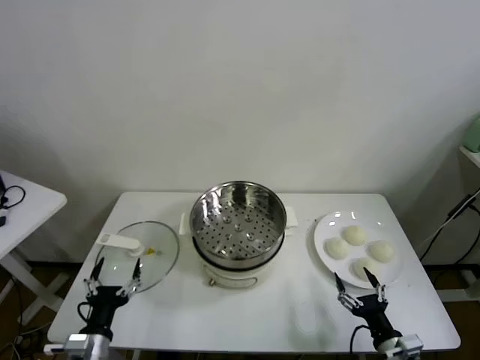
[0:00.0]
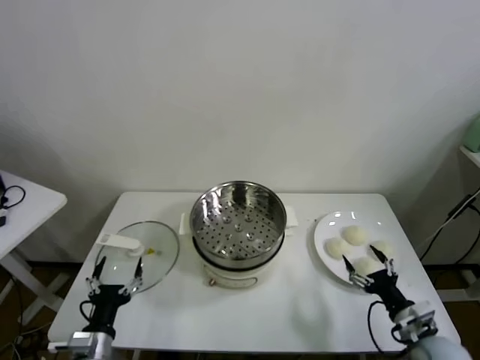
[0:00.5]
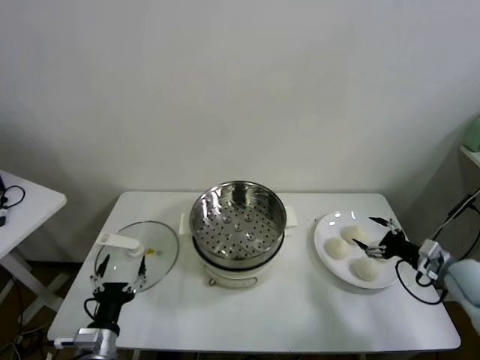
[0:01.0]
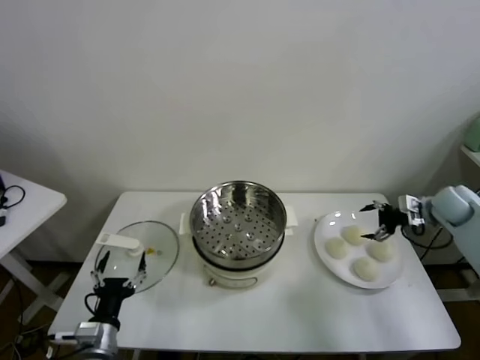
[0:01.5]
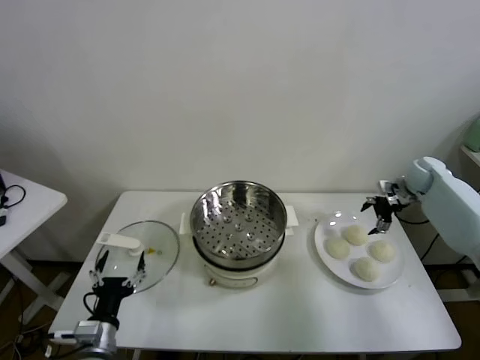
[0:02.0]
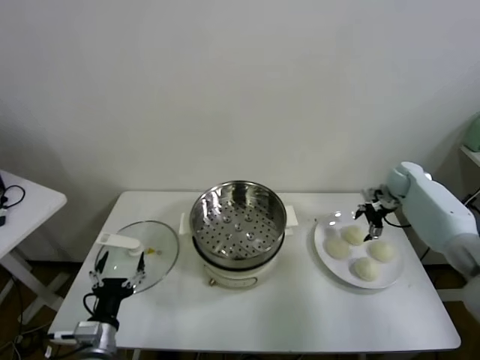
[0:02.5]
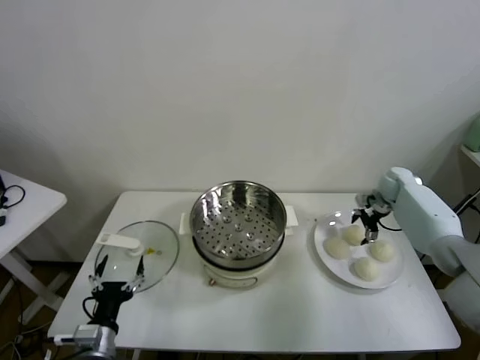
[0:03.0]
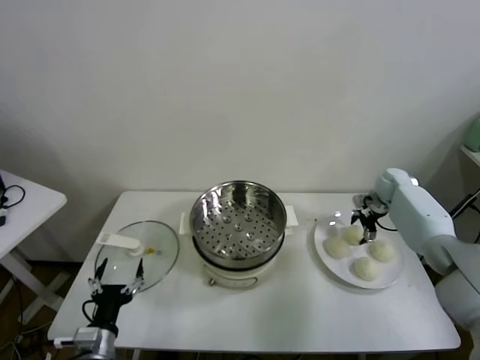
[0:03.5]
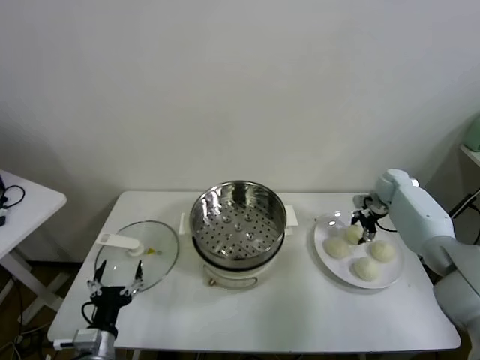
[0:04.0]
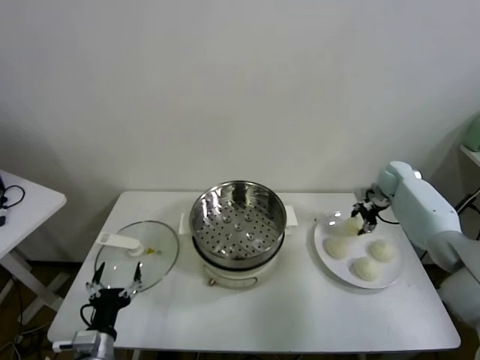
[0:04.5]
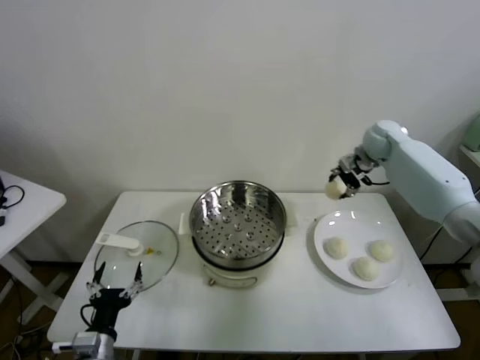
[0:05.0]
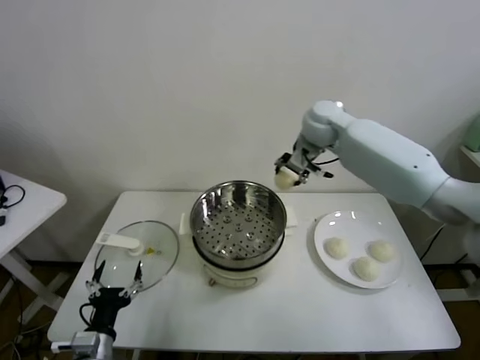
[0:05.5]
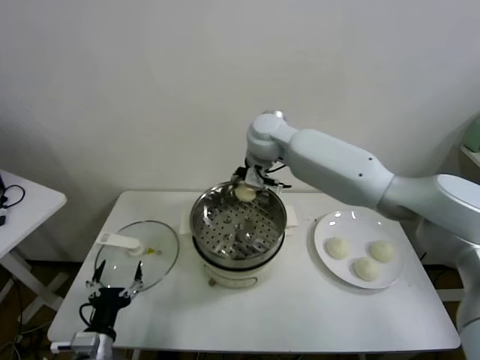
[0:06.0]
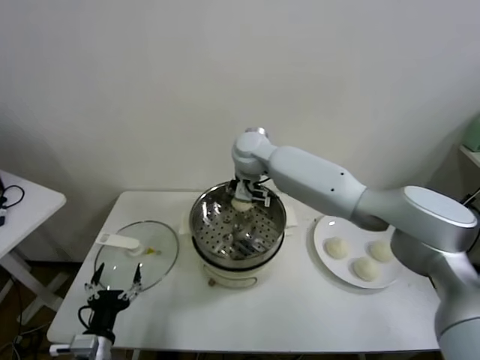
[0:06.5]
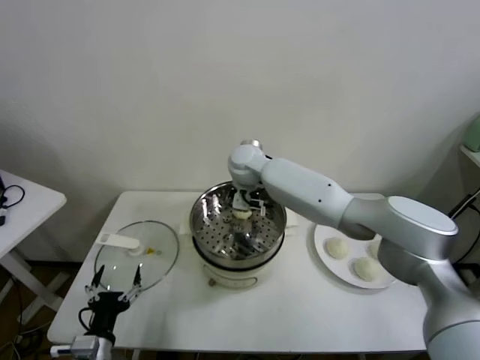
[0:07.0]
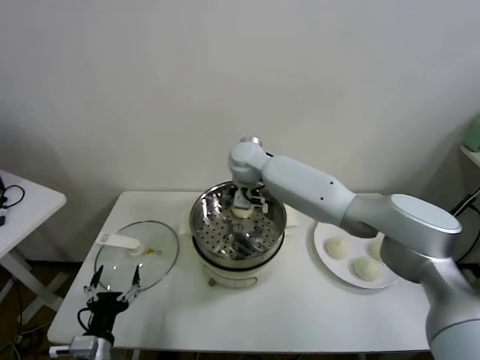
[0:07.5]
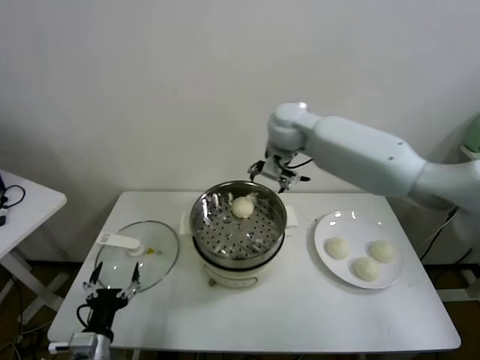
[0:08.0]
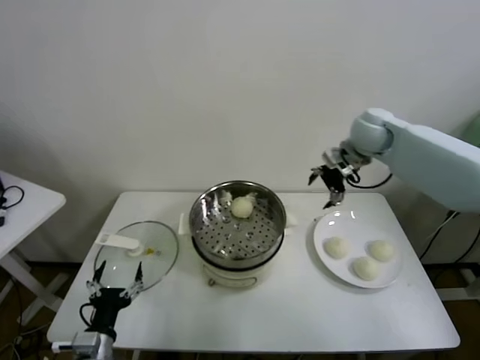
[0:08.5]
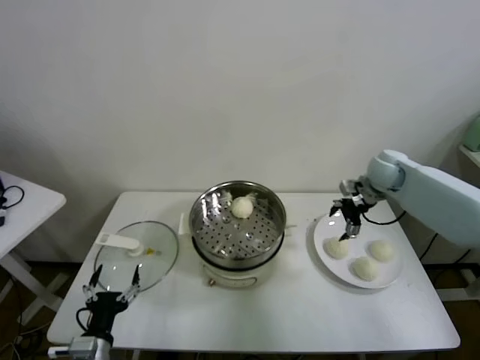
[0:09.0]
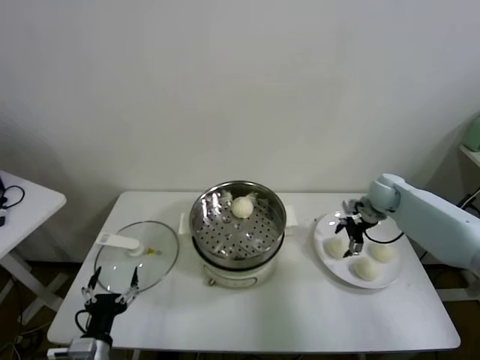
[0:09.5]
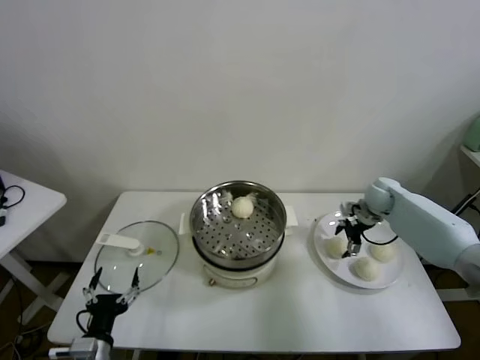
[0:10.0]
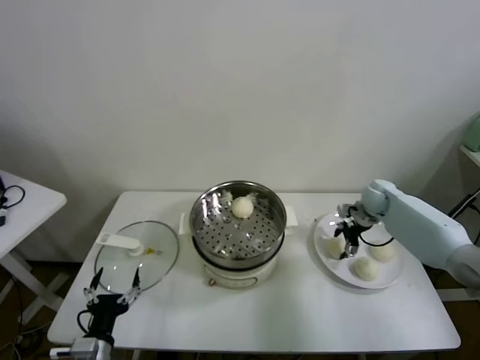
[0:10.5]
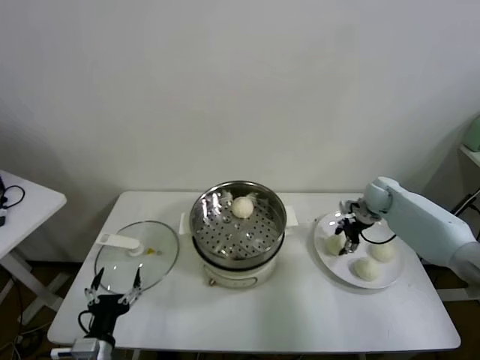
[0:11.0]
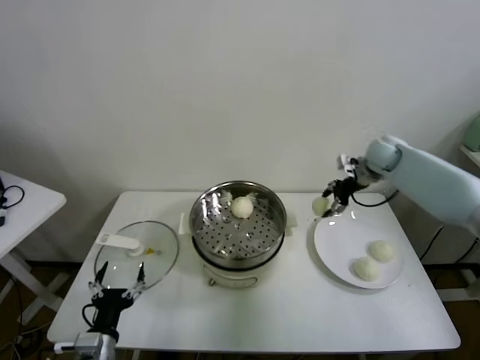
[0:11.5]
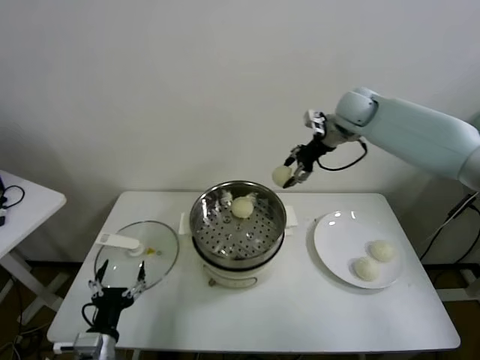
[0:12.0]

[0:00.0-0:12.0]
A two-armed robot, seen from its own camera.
Task of the whole recording: take steamed baozi put them in steamer.
Step, 0.0 to 3.5 s: Grasp the baozi in the plate with right gripper.
Step, 4.0 to 7.0 s: Place the baozi on the steamer with right gripper.
Step, 7.5 to 10.5 s: Grasp the baozi in the plate with right gripper.
2.0 to 4.0 s: The right gripper is displaced downward by roughly 5 cm, and closes.
4.0 to 6.0 s: The right gripper is displaced to the left and upward by roughly 40 cm.
6.0 to 8.0 s: The right gripper moves to the right, approximately 10 cm, and opens up.
8.0 to 10.0 s: The right gripper is displaced to the right and downward by some 35 cm.
10.0 to 12.0 s: The right gripper travels upward and to the left by roughly 30 cm, and closes its fingers.

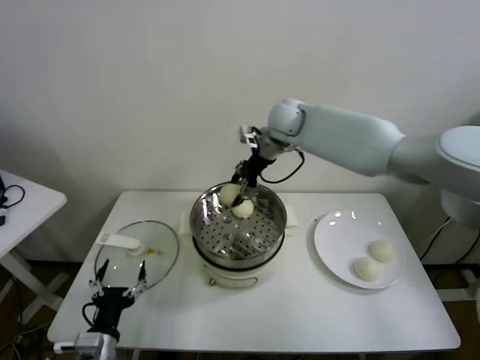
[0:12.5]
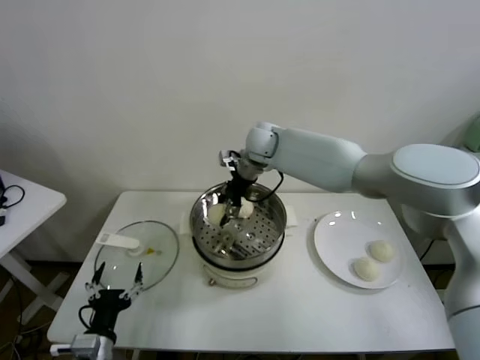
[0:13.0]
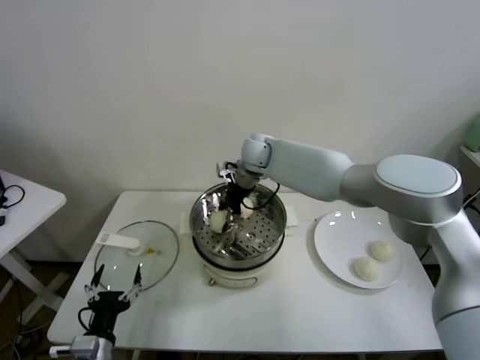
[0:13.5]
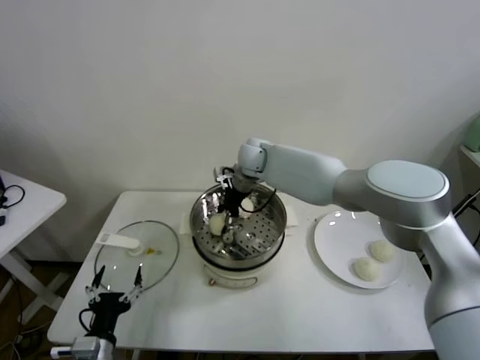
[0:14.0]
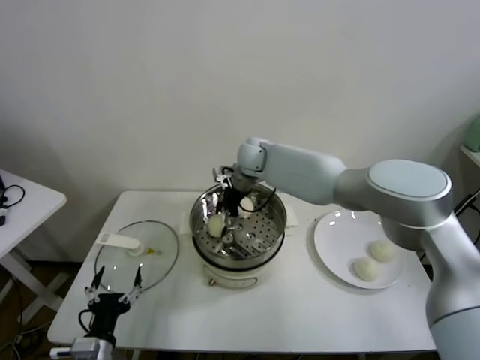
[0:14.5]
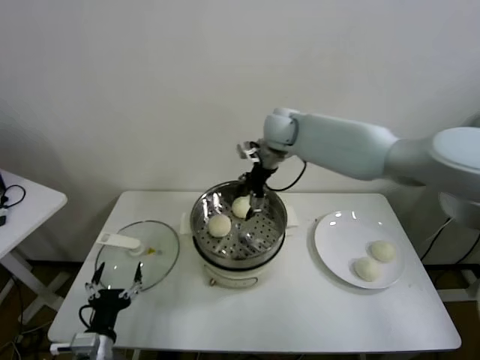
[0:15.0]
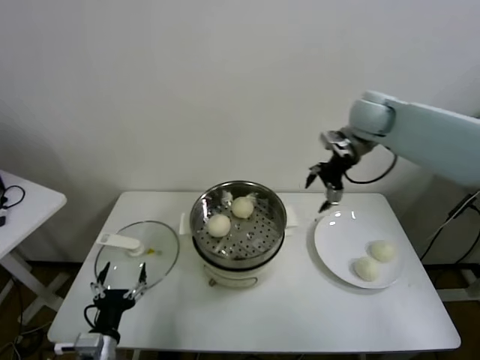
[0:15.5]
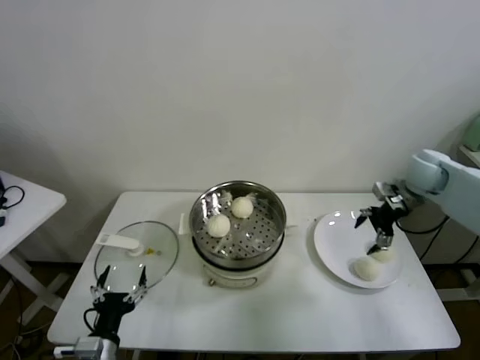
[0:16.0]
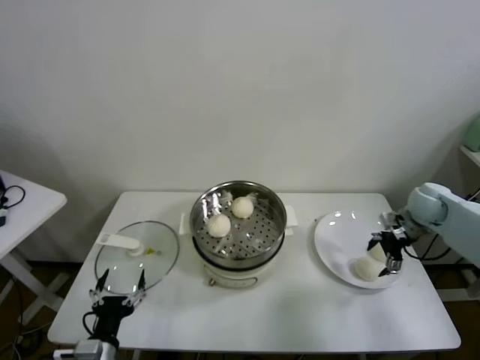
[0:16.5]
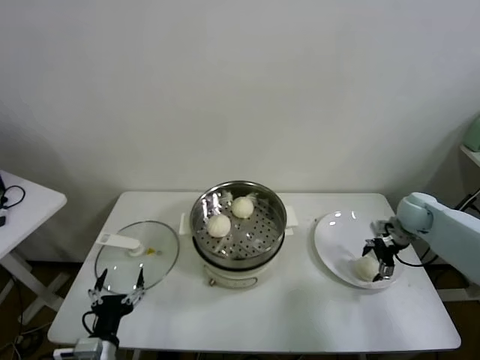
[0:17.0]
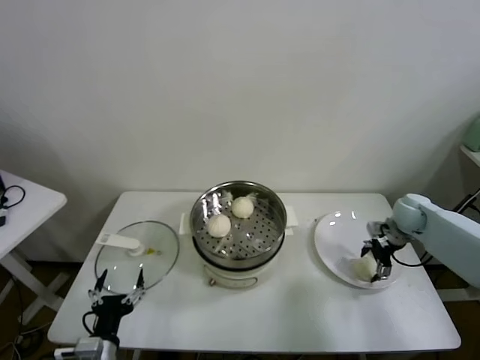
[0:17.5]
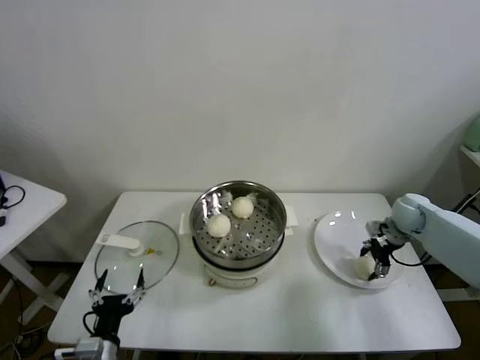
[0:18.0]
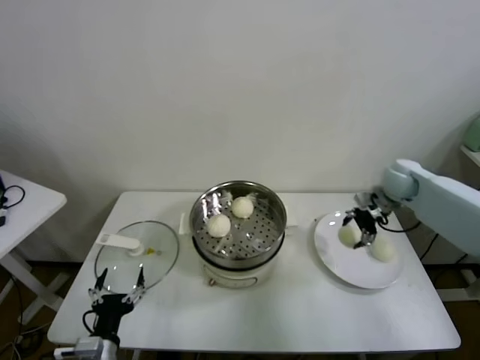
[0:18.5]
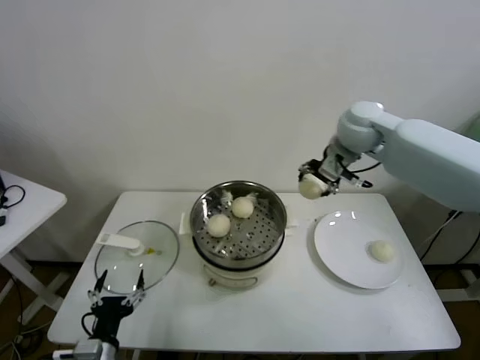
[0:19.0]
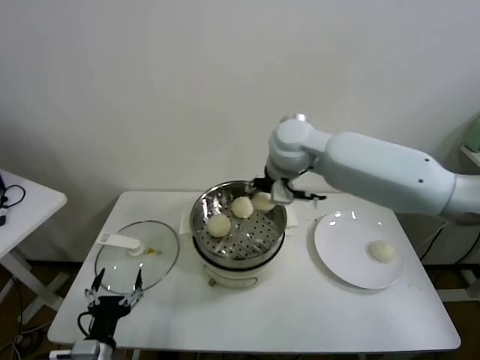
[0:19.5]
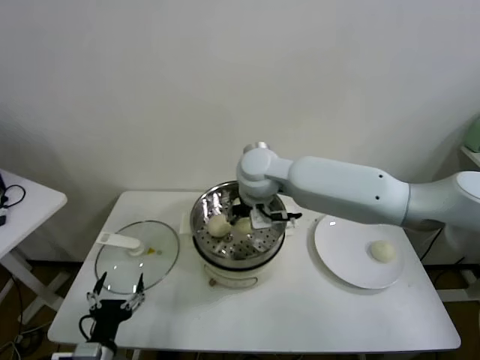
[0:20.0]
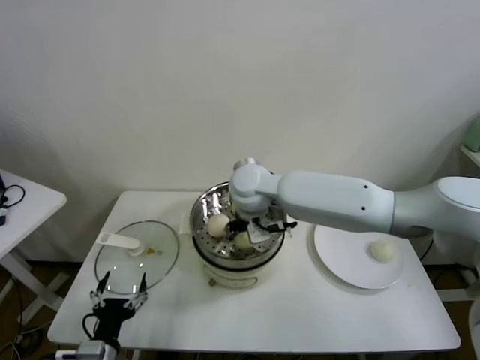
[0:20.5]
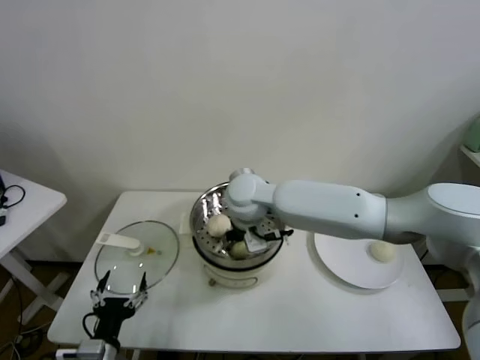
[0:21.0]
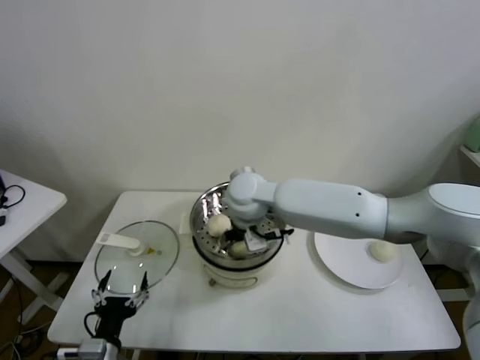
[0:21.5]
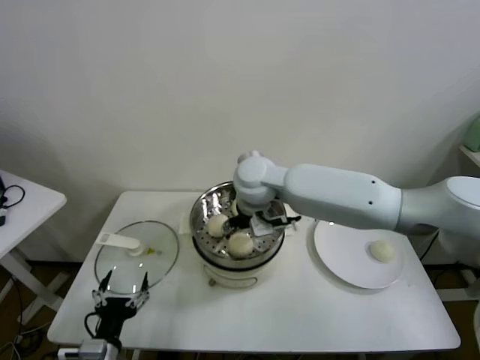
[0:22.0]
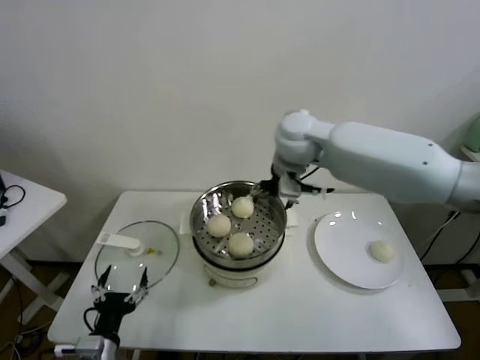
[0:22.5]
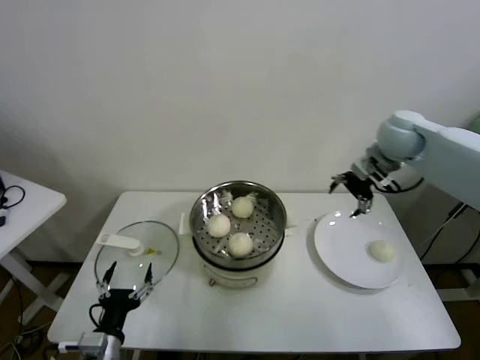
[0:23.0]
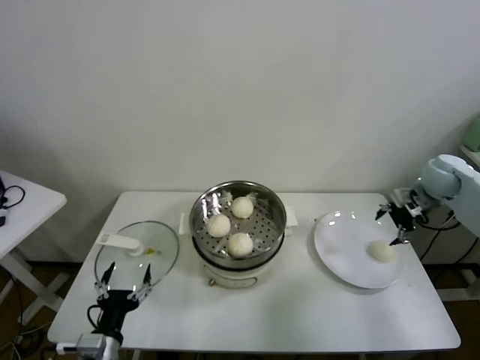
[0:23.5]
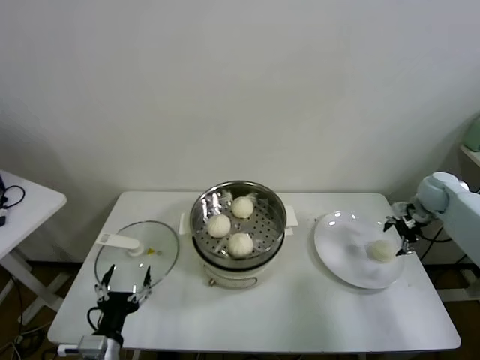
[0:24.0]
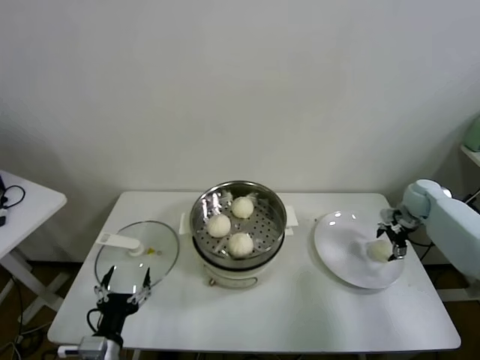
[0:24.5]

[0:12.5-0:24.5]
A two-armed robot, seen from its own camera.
Task of the whole recording: take steamed baozi put them in steamer.
Step, 14.5 to 17.5 s: Grasp the baozi in the plate with right gripper.
Step, 18.0 to 21.5 s: Place the baozi on the steamer with right gripper.
12.5 to 14.5 s: The right gripper moves downward and to the left, roughly 10 cm, and opens its fingers.
14.5 to 16.5 s: The right gripper moves to the right, some 40 cm.
16.5 to 18.5 s: The right gripper shifts some 10 cm to the left and upward, and closes its fingers.
18.5 to 20.5 s: The right gripper travels to the left by about 35 cm.
20.5 to 22.5 s: The right gripper shifts roughly 15 cm to the right and upward, and opens up.
22.5 to 24.5 s: The right gripper shifts about 40 cm to the right and downward.

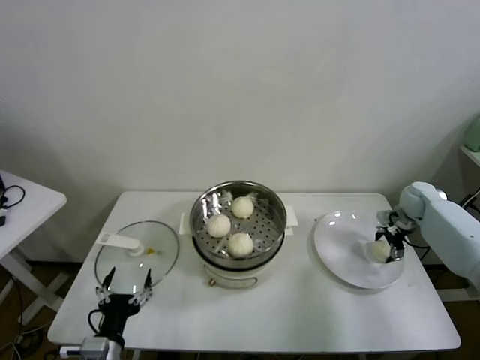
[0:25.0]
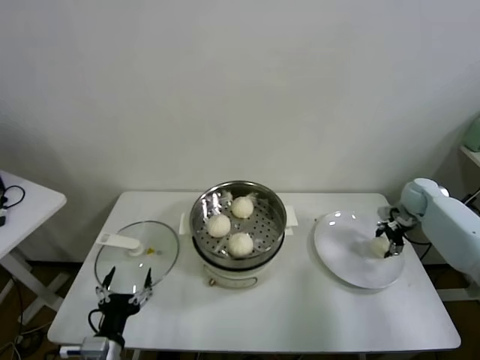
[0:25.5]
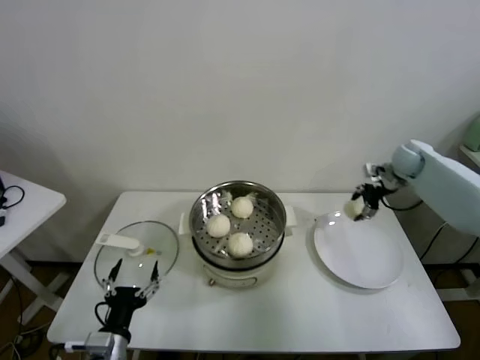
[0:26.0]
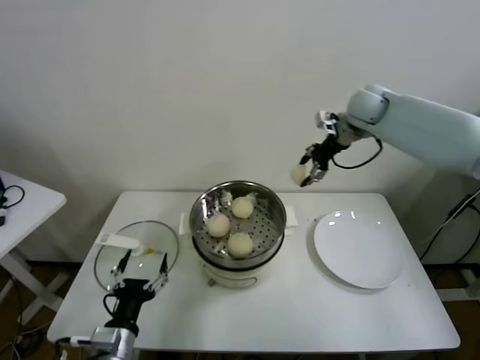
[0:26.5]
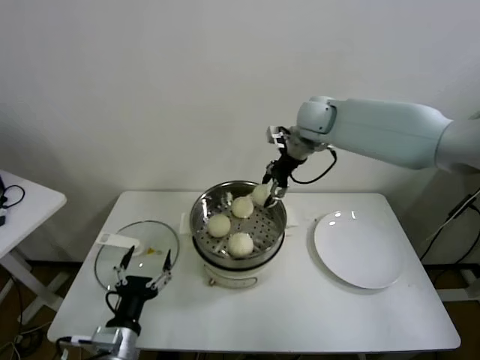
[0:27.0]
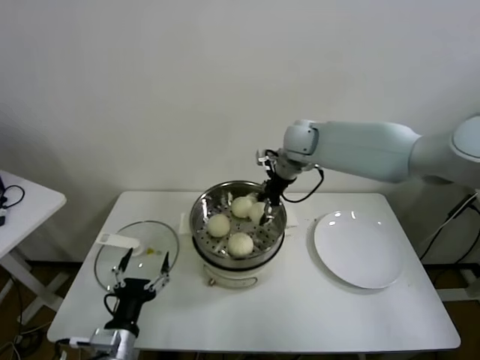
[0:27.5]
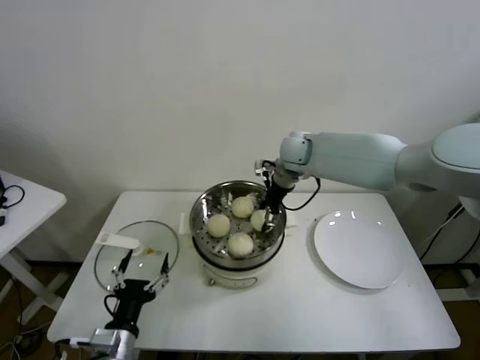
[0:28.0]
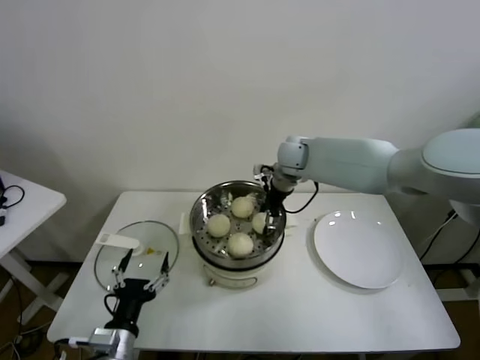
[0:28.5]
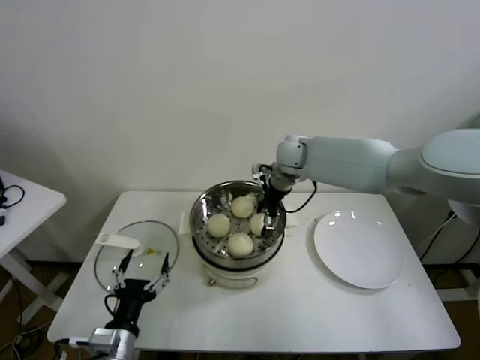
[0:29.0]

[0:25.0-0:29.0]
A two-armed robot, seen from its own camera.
Task of the whole recording: take steamed baozi put them in steamer.
Step, 25.5 to 28.5 s: Place the baozi on the steamer with right gripper.
25.0 to 27.0 s: The right gripper moves to the left and upward, approximately 40 cm, and closes. The left gripper changes place by approximately 5 cm.
27.0 to 29.0 s: The right gripper goes approximately 10 cm downward, and opens.
